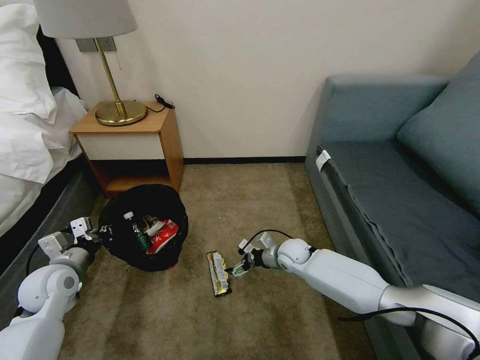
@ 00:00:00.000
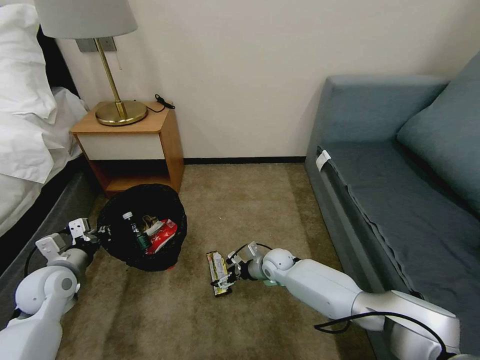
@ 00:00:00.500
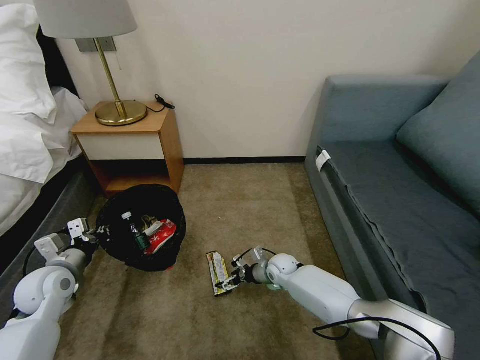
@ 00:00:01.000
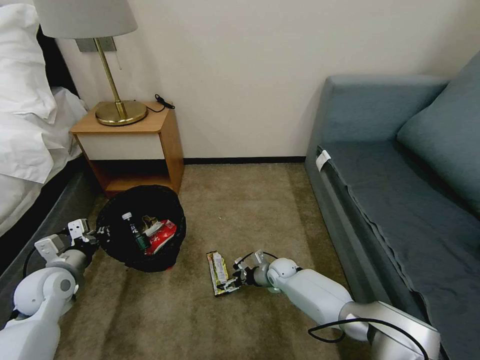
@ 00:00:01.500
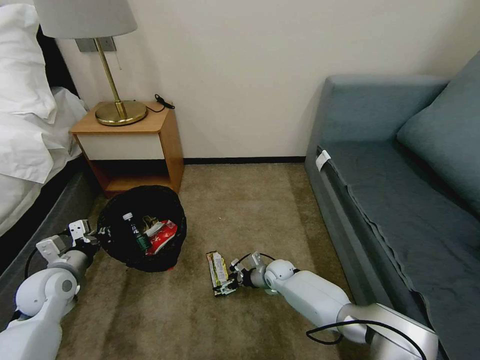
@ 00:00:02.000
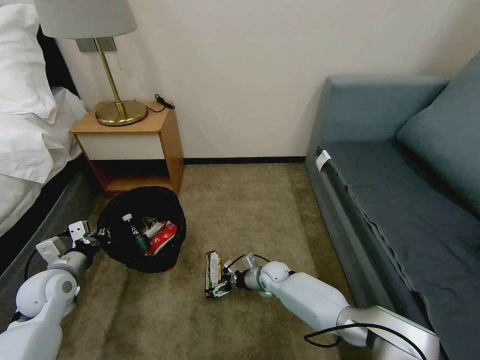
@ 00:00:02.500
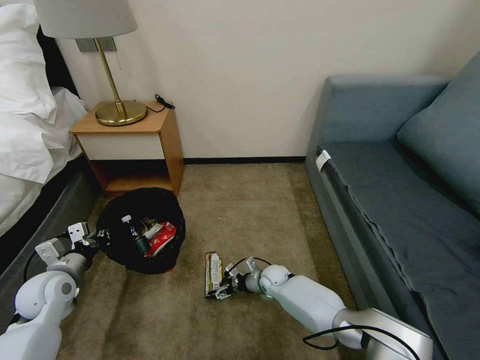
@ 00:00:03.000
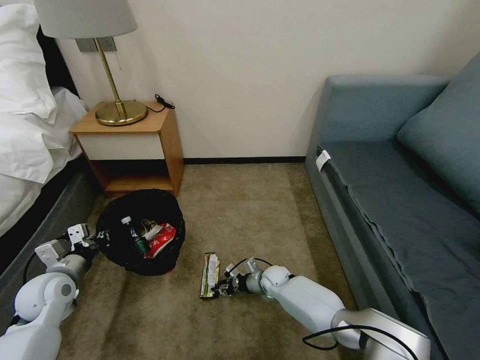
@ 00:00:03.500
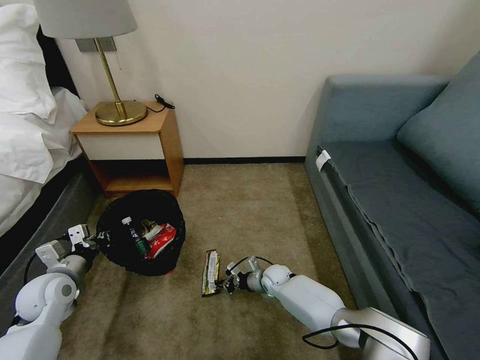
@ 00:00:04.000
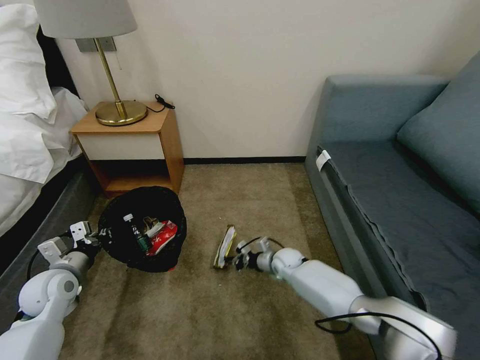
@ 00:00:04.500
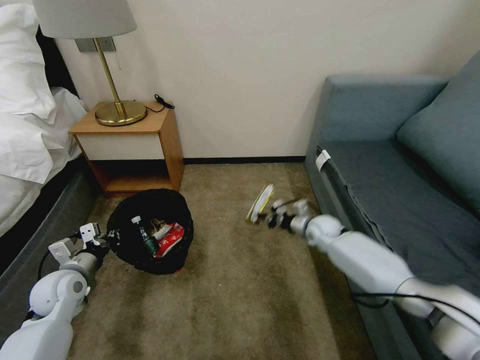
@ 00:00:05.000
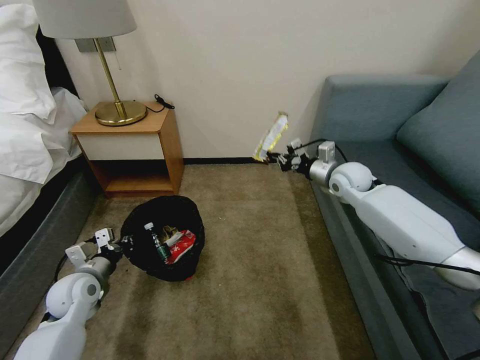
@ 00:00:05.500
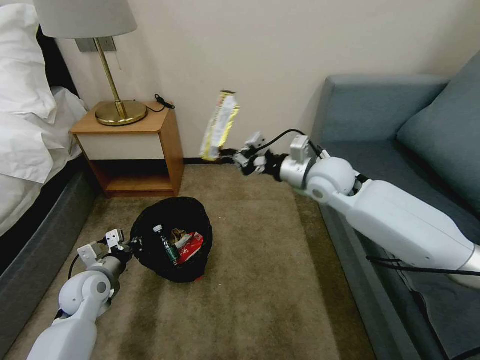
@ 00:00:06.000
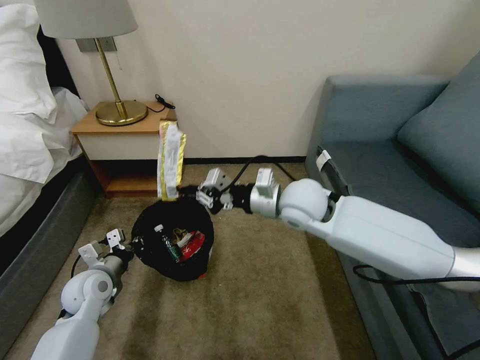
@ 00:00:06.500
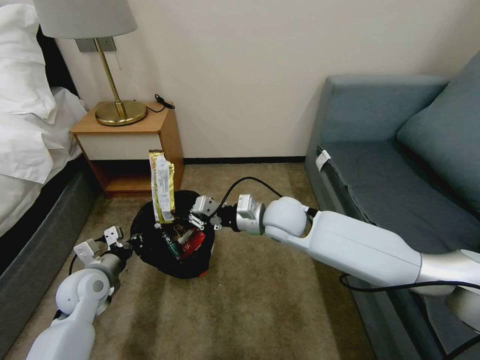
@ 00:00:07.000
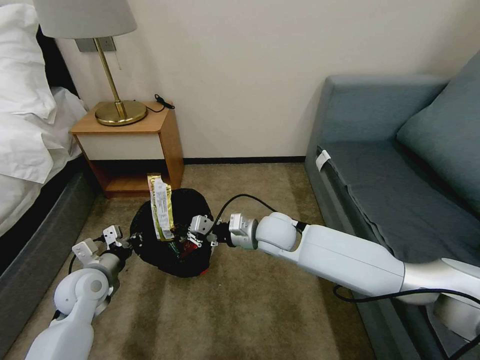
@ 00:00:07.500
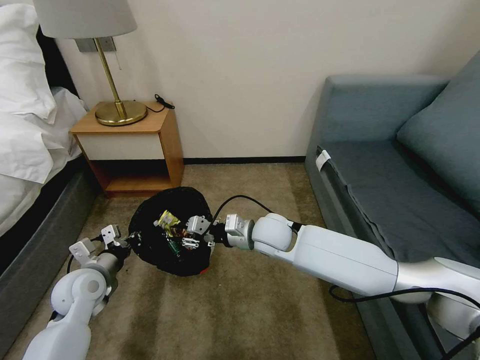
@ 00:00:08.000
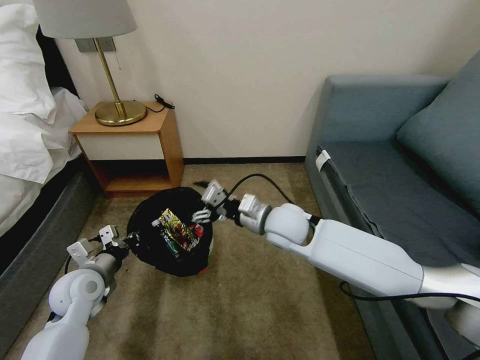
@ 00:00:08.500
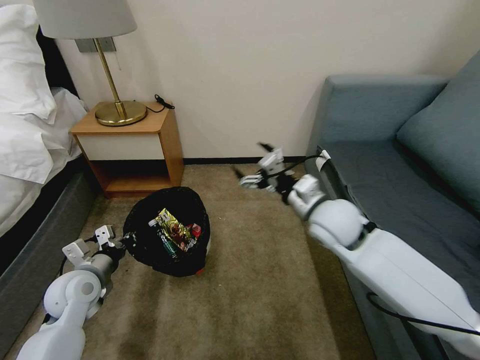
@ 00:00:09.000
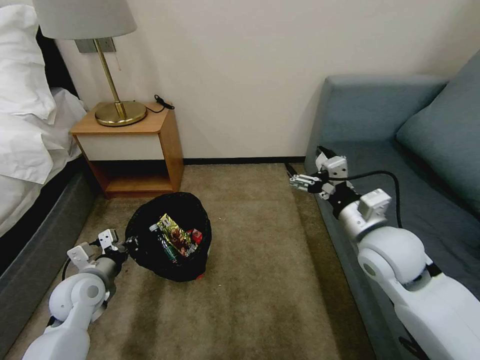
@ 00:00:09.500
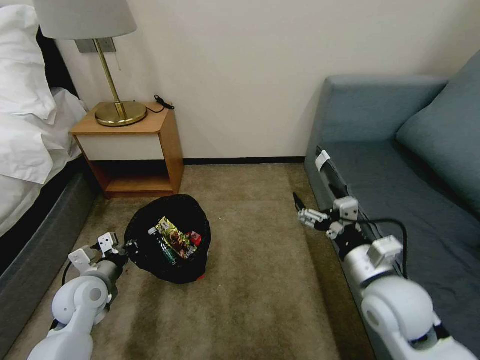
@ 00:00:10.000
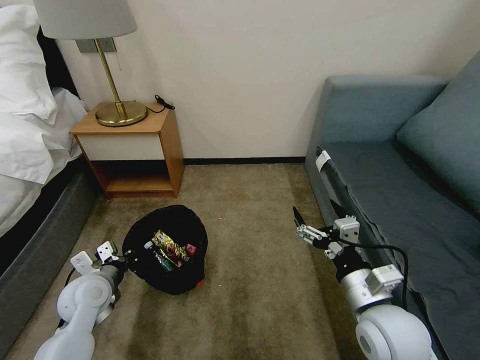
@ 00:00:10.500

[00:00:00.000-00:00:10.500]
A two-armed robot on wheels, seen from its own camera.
Task of the whole recording: Pick up the trash bin, then pick up the garbage on the floor and place it into the trash bin.
00:00:00.000 to 00:00:02.000: The right gripper shifts some 10 cm downward.
00:00:02.000 to 00:00:04.000: The right gripper closes up.
00:00:04.000 to 00:00:06.500: The left gripper heads to the right, covering roughly 5 cm, while the right gripper moves upward, about 40 cm.
00:00:06.500 to 00:00:08.500: The right gripper shifts about 5 cm downward, and opens its fingers.
00:00:08.500 to 00:00:10.500: The right gripper moves backward and to the right, roughly 25 cm.

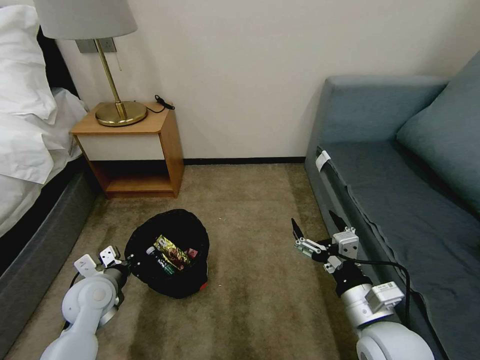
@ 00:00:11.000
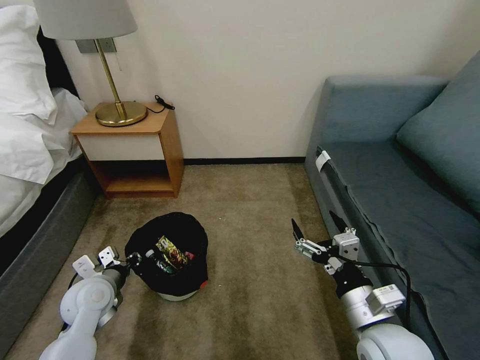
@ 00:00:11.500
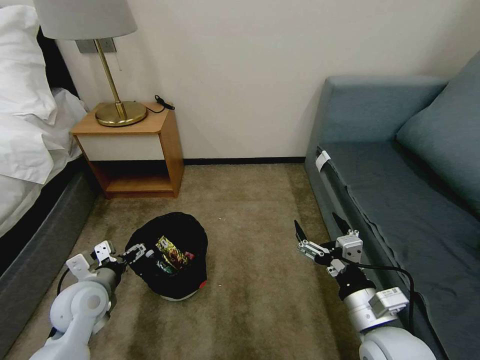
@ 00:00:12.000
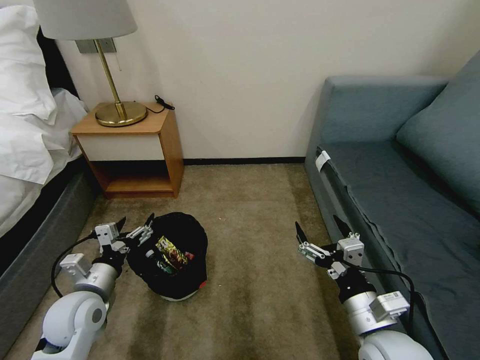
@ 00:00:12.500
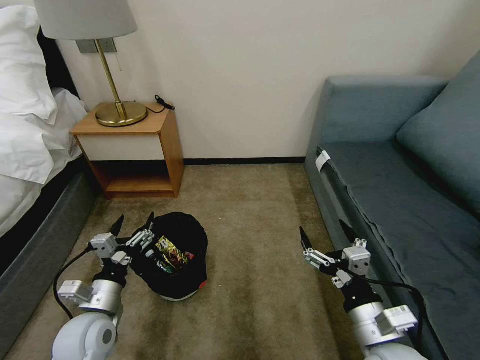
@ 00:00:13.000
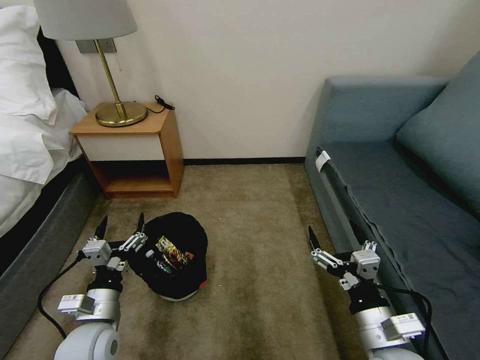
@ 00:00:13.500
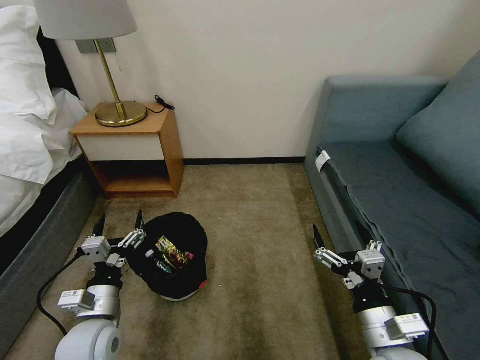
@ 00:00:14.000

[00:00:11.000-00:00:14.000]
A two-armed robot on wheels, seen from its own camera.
Task of the whole recording: Pick up the trash bin, then pick up the garbage on the floor and place it into the trash bin.
00:00:11.000 to 00:00:12.500: The left gripper opens.
00:00:12.500 to 00:00:14.000: The left gripper moves about 5 cm.
